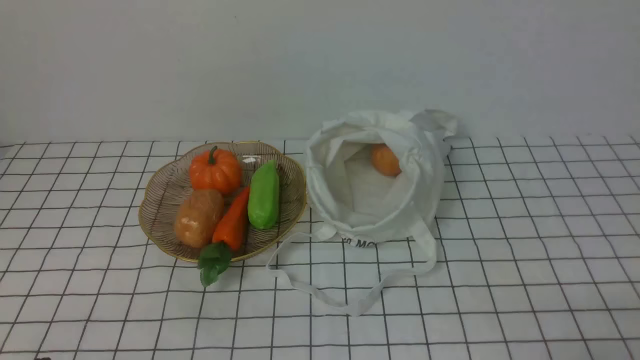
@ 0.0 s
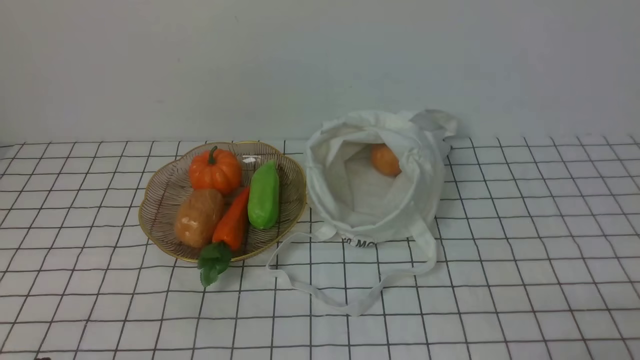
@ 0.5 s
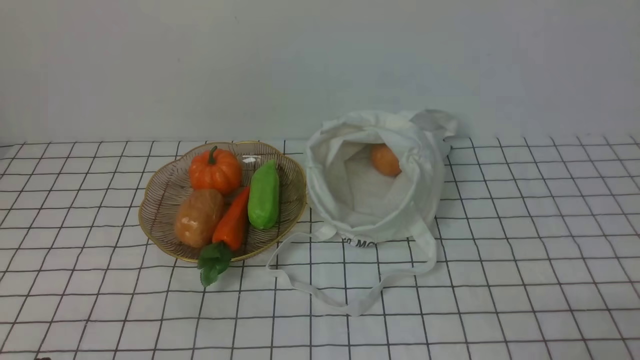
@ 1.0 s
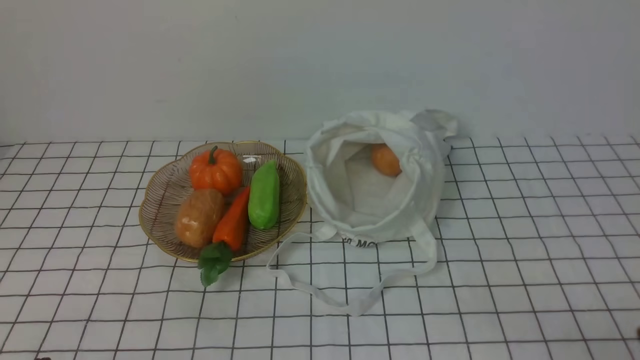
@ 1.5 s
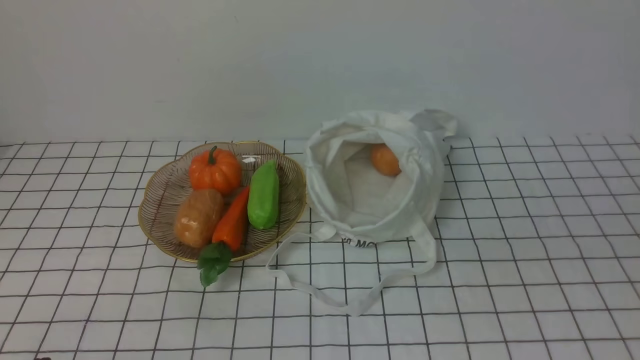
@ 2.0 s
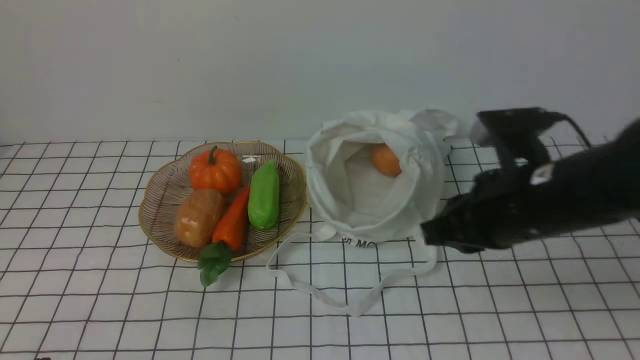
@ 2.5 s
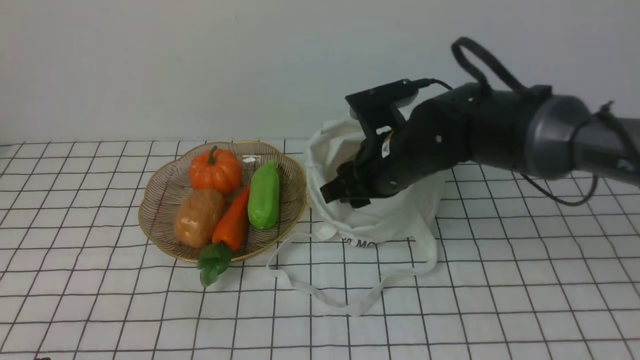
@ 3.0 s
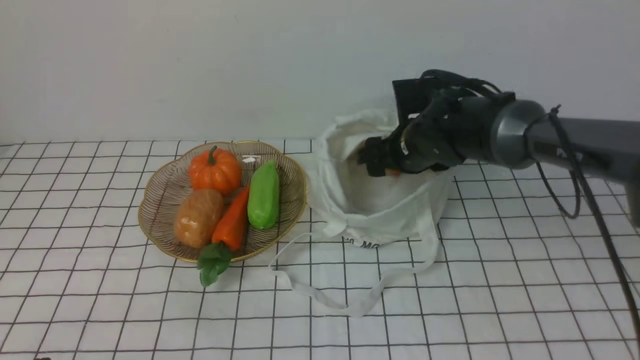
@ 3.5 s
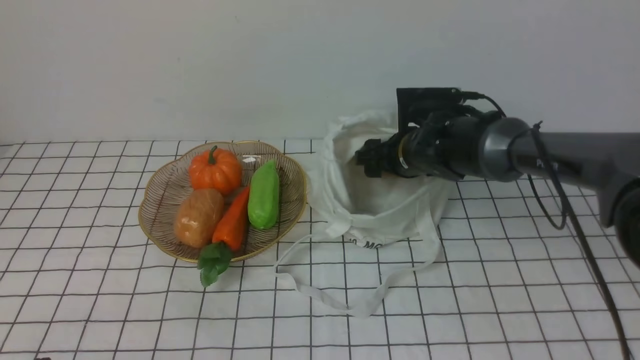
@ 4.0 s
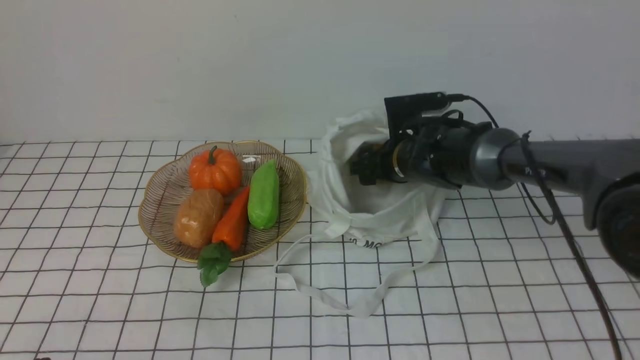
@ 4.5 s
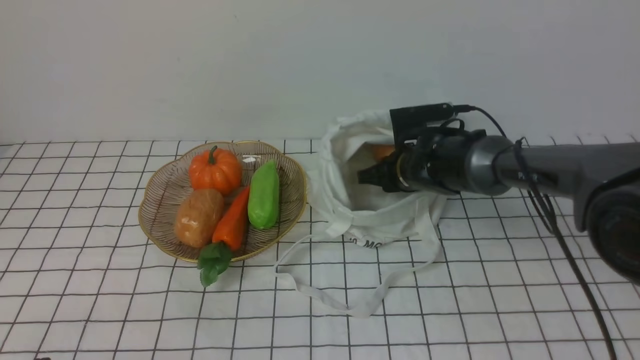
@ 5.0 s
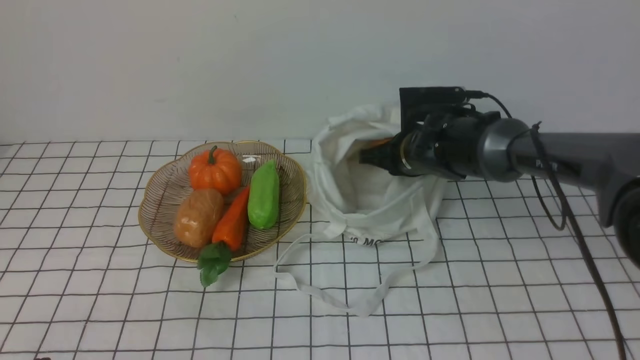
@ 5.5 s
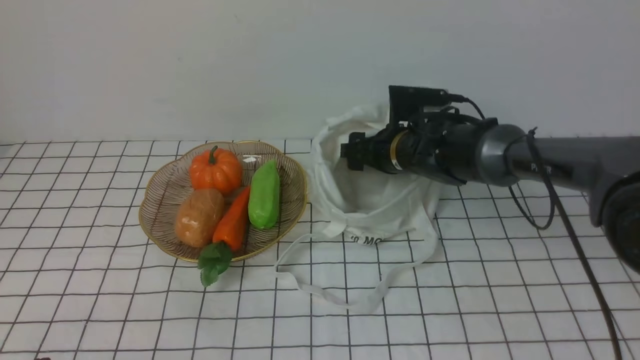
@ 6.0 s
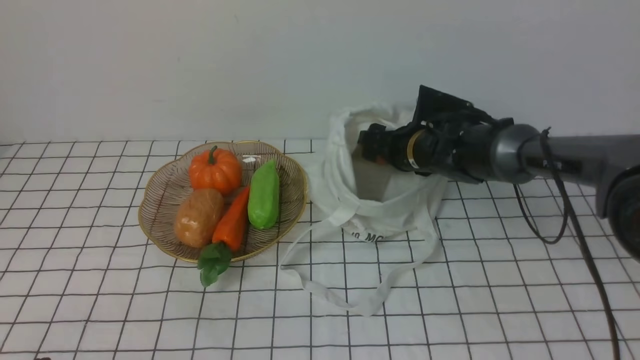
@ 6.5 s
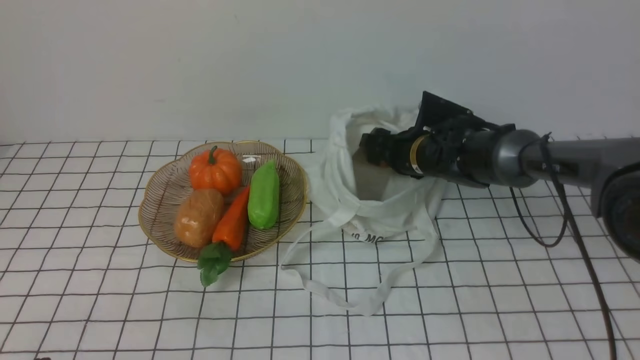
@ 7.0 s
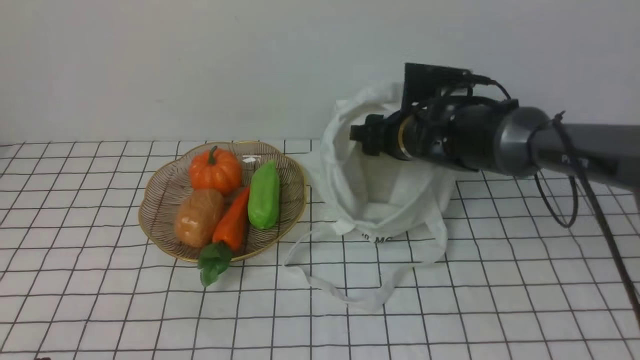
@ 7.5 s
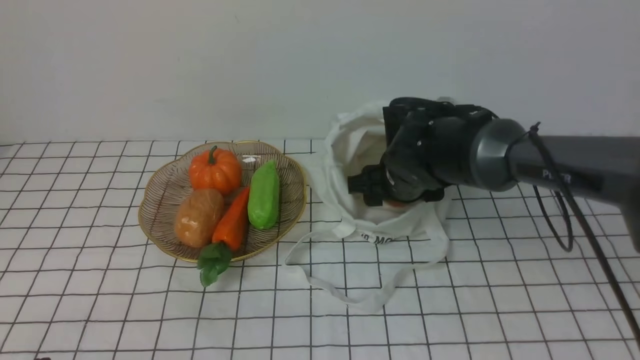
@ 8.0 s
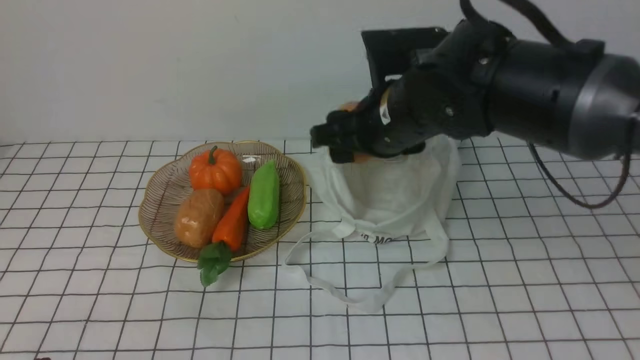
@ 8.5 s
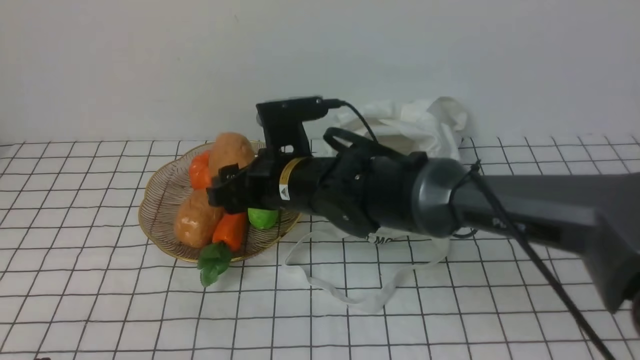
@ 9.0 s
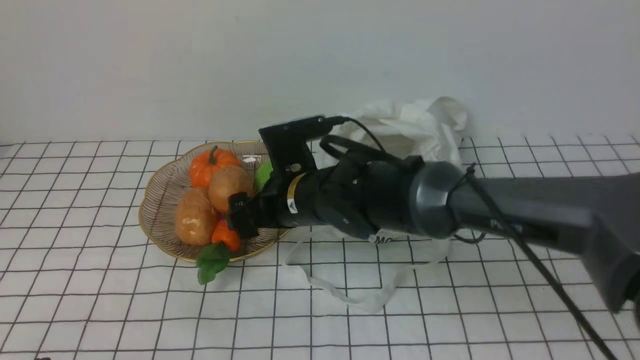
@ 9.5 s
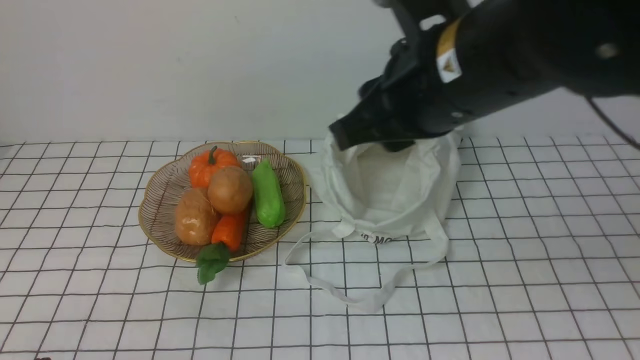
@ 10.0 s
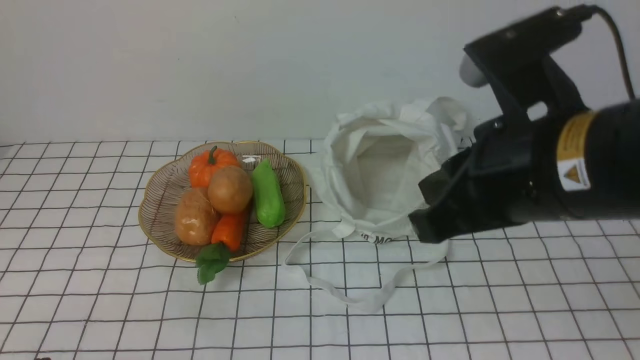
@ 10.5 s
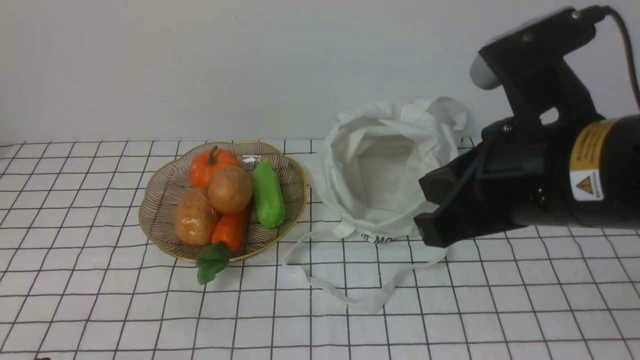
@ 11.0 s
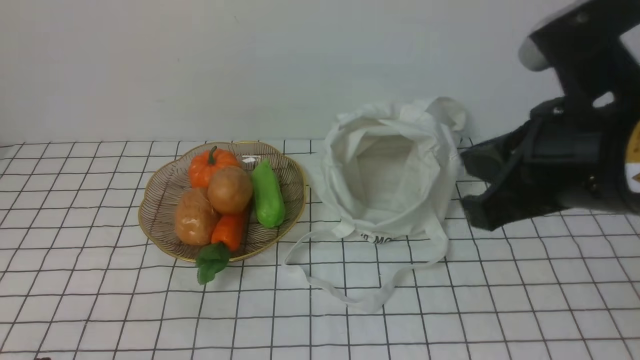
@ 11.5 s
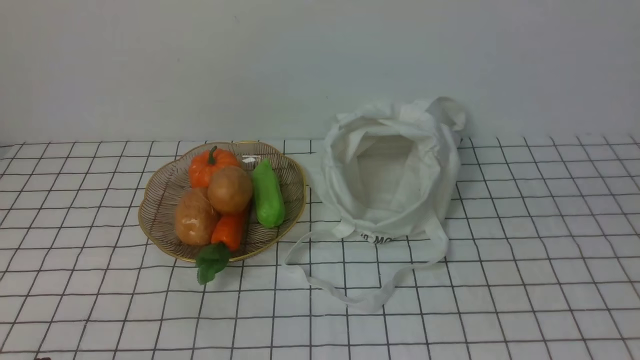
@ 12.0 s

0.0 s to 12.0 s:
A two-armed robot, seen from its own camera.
Task of the whole recording: take vegetables from bag on white checkered tablecloth place on plate.
Step, 0.0 to 5.0 s: Grasp the potato with right gripper.
Step, 5.5 to 9.5 s: Place the potato on the plate with right gripper.
2.0 to 4.0 s: The right gripper goes some 40 cm forward, to the left and downward, and opens.
4.0 to 6.0 s: The right gripper closes, then reopens.
6.0 to 8.0 s: The right gripper shifts roughly 5 cm backward.
8.0 to 10.0 s: The right gripper swings up and down, some 20 cm each way, with 2 reversals.
10.0 to 12.0 s: The right gripper heads to the right and backward, covering approximately 25 cm, and closes its fingers.

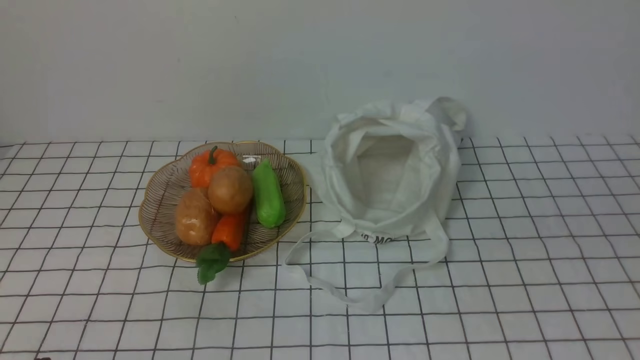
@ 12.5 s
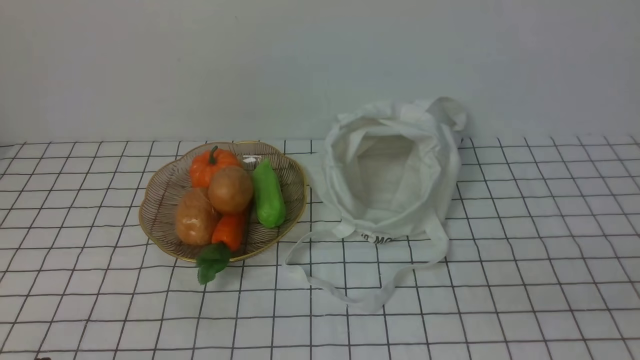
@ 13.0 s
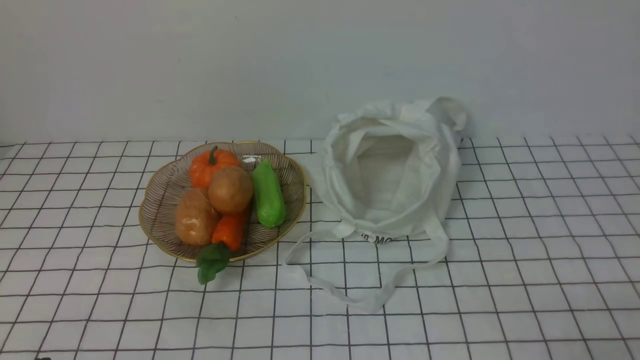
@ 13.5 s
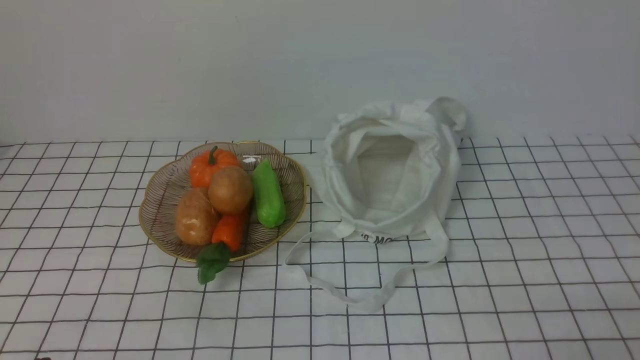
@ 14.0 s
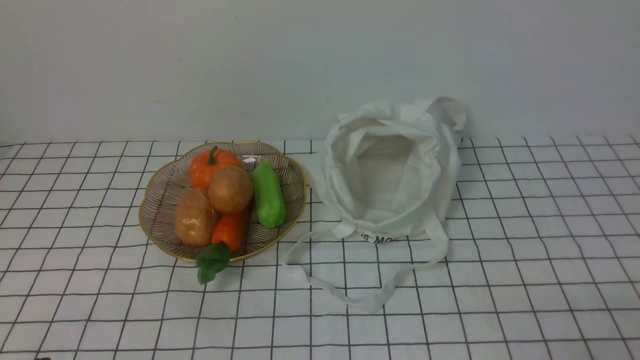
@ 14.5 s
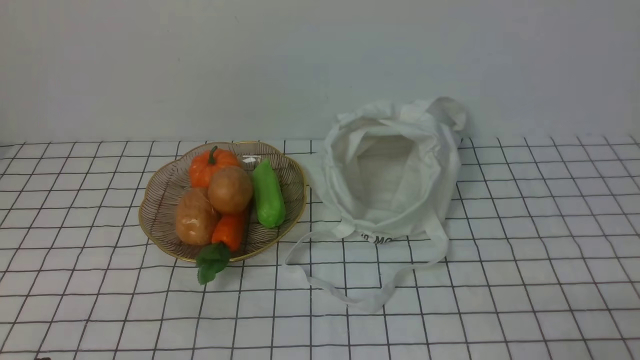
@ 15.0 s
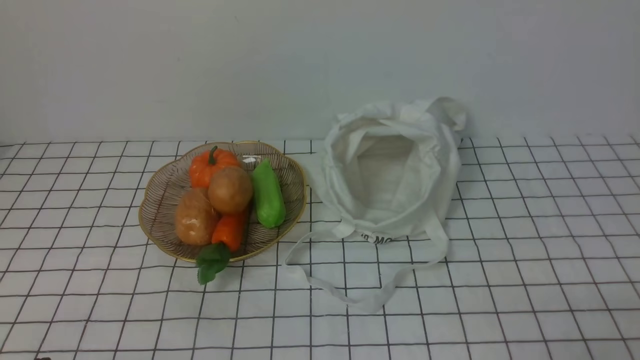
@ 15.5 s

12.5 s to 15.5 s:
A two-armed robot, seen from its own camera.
Task of the whole recording: take vegetables from bag on white checkered tablecloth place on plate.
14.0 to 15.5 s: The two grippers keep their place.
